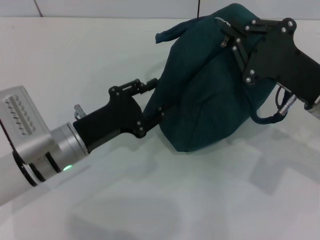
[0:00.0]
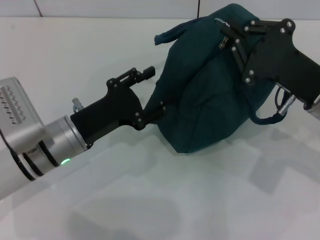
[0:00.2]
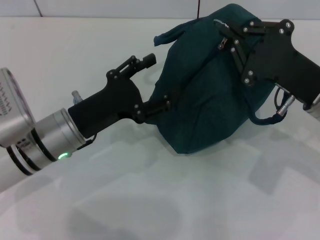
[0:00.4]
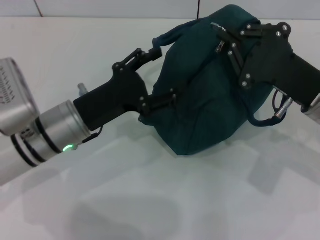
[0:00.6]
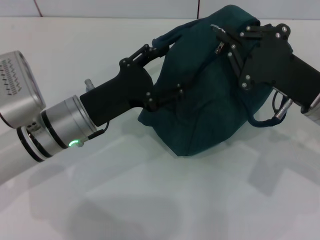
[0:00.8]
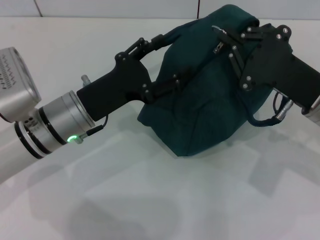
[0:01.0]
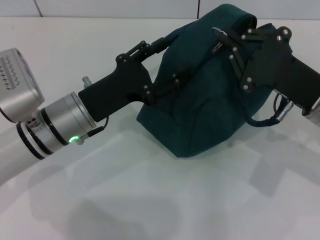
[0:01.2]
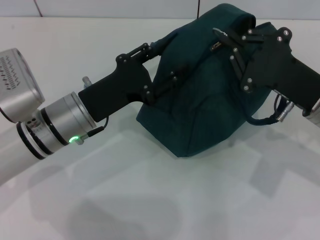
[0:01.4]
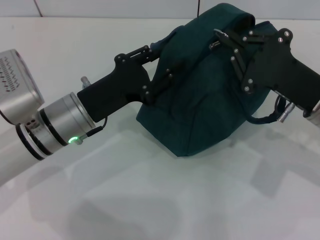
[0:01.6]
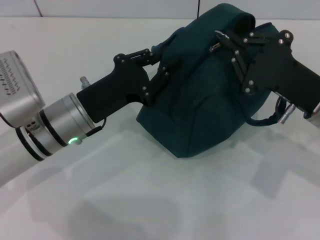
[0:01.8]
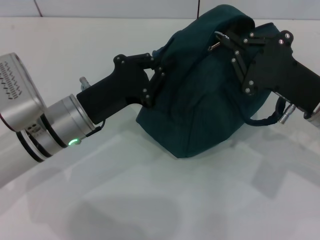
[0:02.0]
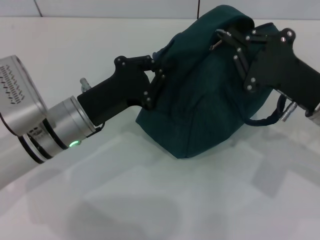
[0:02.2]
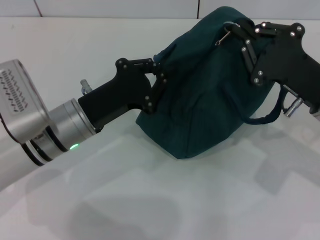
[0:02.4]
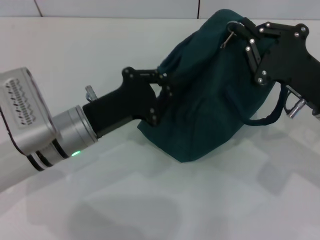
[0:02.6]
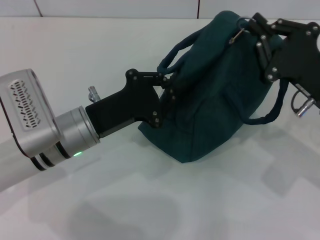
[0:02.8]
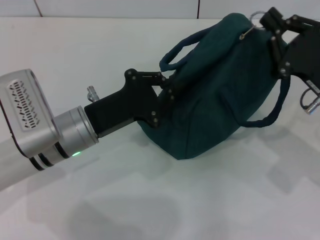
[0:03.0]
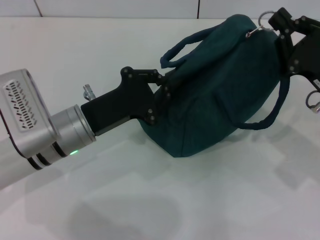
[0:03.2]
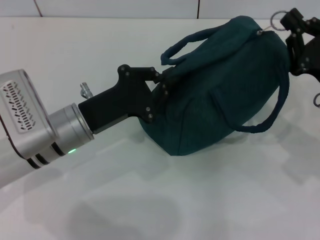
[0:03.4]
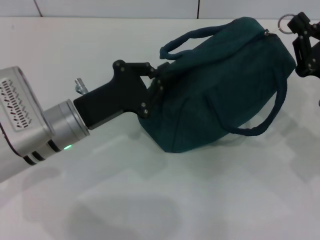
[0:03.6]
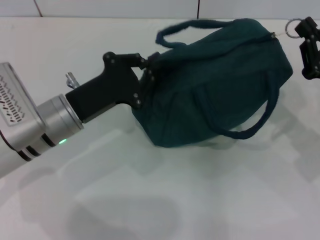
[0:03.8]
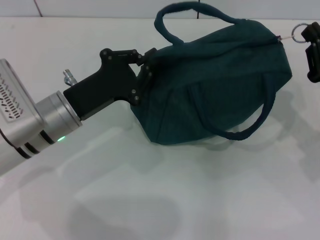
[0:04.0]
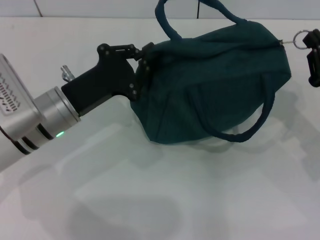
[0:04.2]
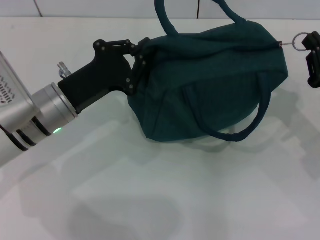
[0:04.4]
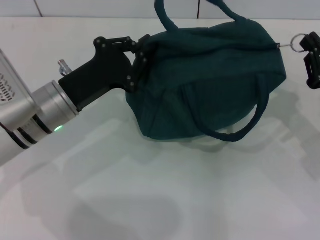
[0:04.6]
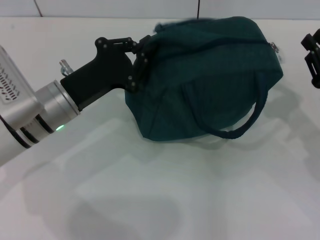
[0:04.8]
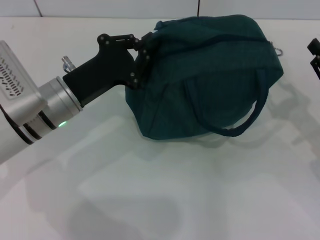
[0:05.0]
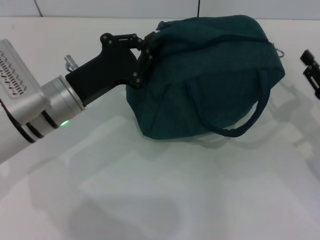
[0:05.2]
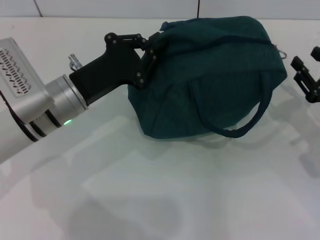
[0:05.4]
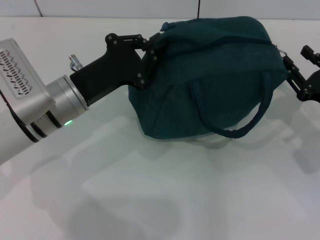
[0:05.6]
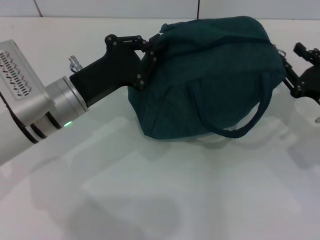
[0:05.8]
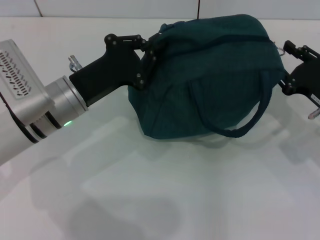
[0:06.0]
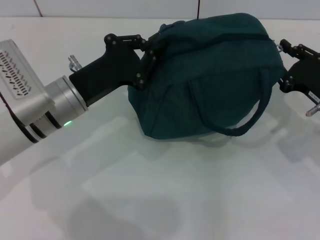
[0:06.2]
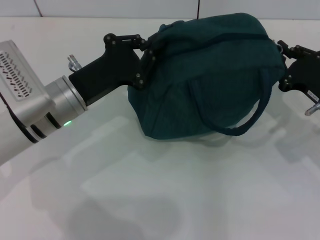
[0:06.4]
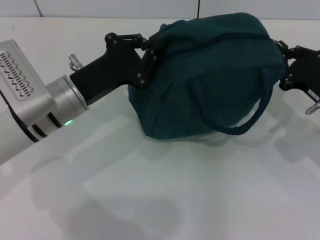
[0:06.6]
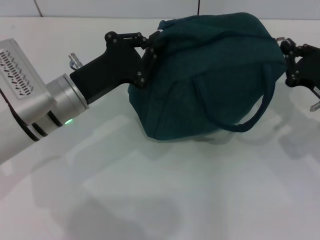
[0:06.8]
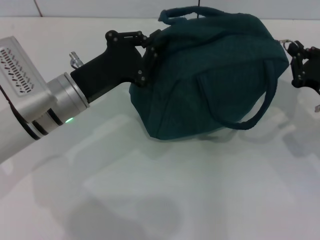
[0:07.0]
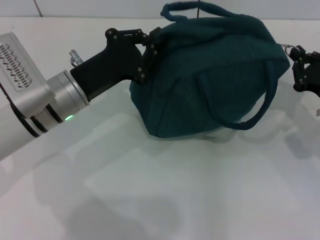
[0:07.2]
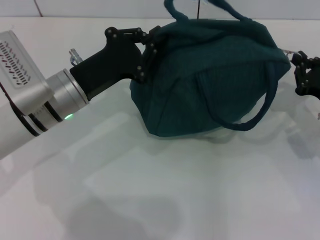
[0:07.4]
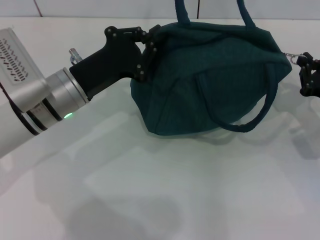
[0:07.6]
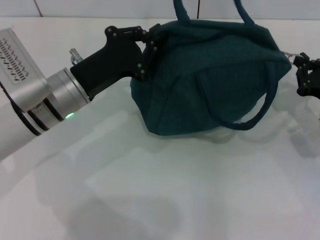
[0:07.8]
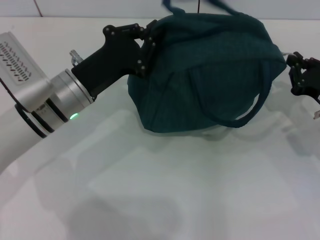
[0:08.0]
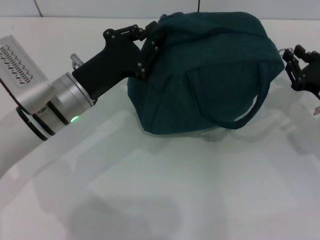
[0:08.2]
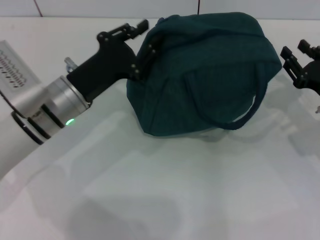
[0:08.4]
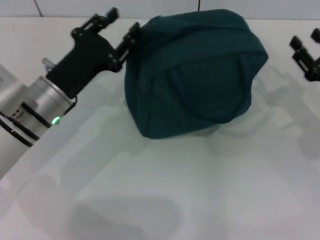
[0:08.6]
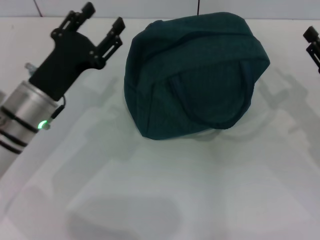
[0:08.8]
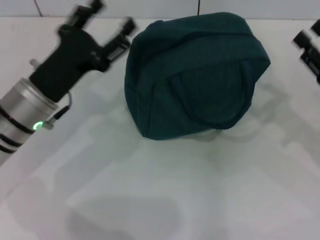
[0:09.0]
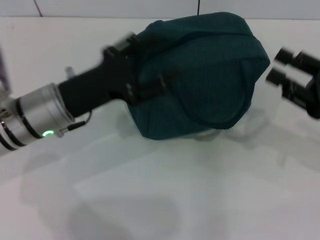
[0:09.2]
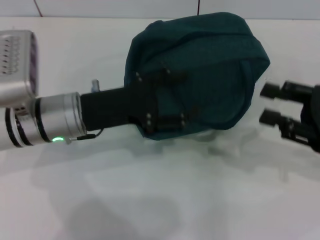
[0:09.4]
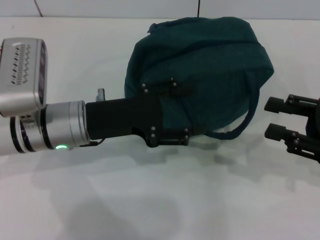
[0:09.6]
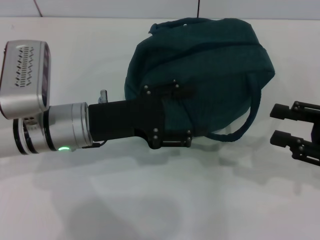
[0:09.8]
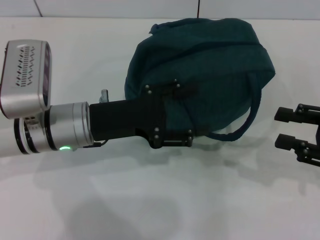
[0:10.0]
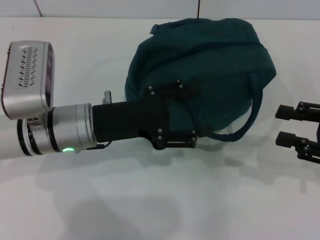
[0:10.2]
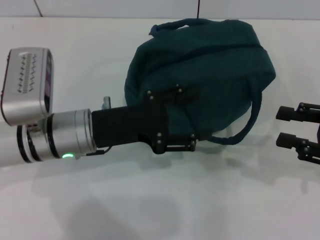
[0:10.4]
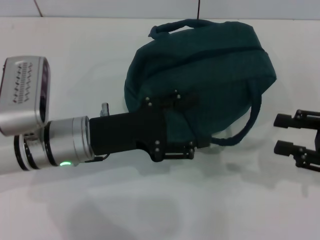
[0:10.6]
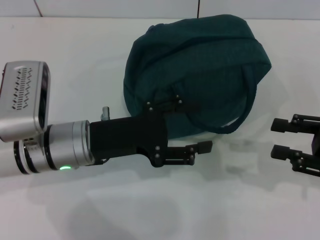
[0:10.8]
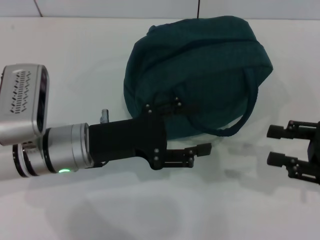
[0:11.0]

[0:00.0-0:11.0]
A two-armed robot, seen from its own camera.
Step, 0:00.0 to 0:08.0: Zip up the lunch bag with your right hand.
Step, 0:08.4 to 0:08.6: Hold the lunch bag with your left hand.
0:00.0 to 0:01.6: The grippers move only a little.
0:01.6 to 0:03.2: The left gripper closes its fingers.
0:03.2 to 0:04.8: The right gripper moves some 5 cm.
0:04.8 to 0:06.2: The right gripper opens its fingers.
0:06.2 to 0:07.8: The right gripper closes up.
0:07.8 to 0:09.4: The left gripper opens, while the right gripper goes some 5 cm upward, and opens.

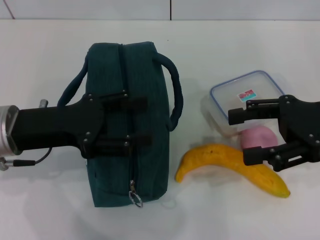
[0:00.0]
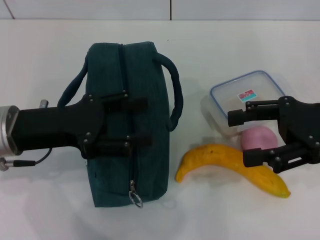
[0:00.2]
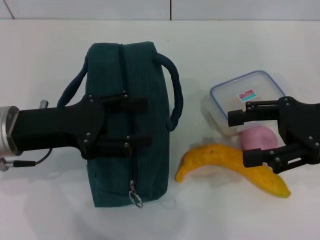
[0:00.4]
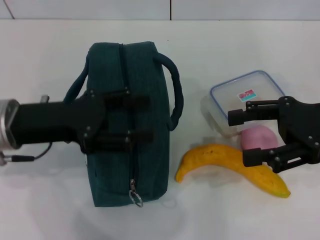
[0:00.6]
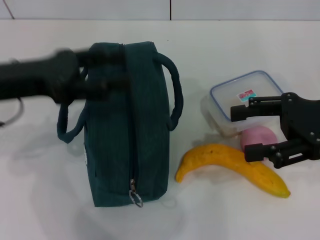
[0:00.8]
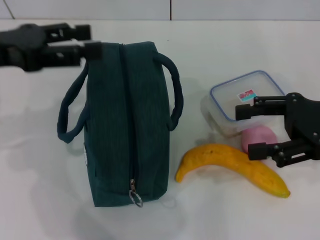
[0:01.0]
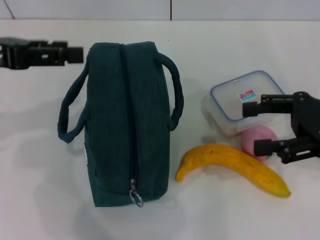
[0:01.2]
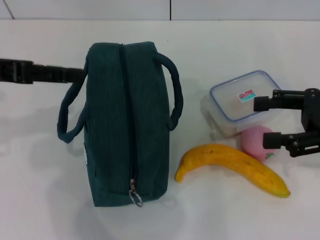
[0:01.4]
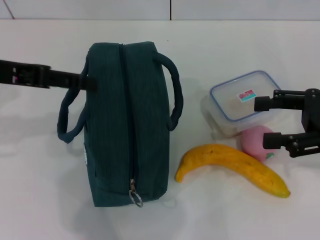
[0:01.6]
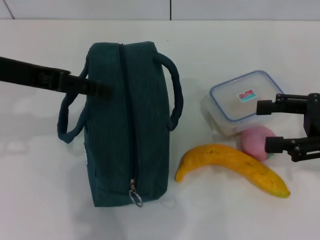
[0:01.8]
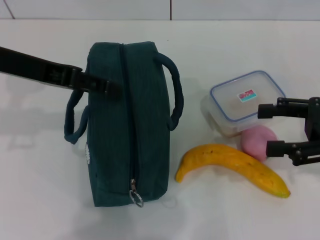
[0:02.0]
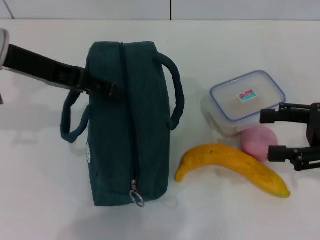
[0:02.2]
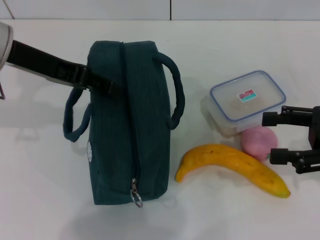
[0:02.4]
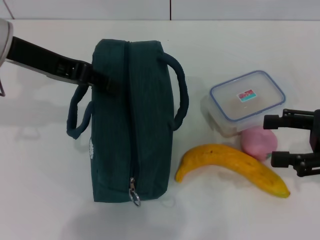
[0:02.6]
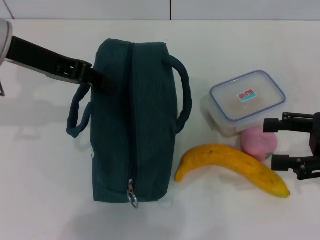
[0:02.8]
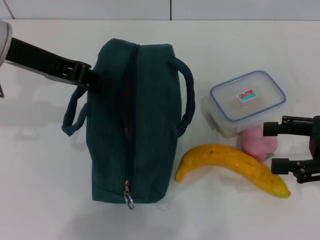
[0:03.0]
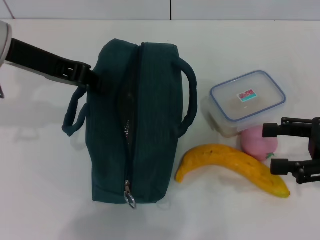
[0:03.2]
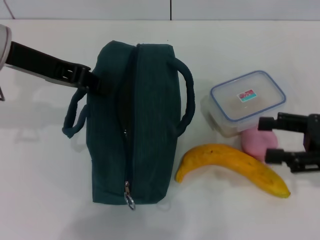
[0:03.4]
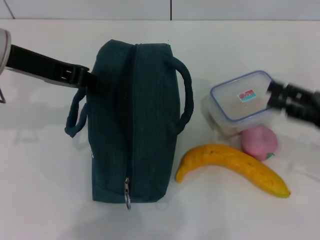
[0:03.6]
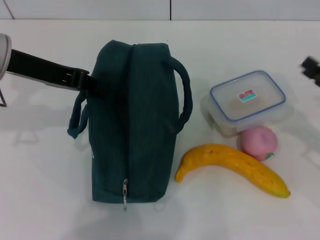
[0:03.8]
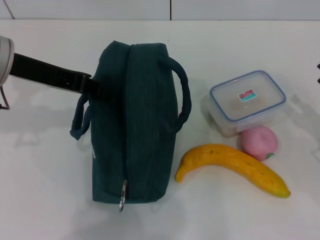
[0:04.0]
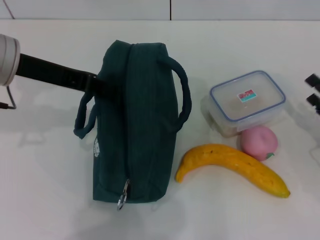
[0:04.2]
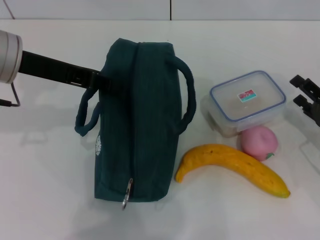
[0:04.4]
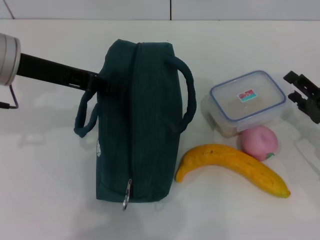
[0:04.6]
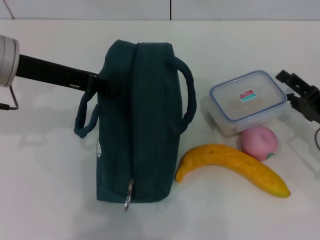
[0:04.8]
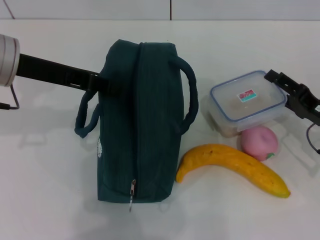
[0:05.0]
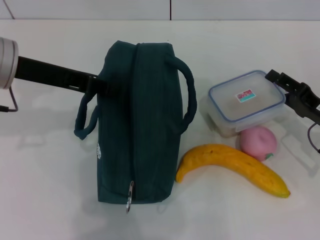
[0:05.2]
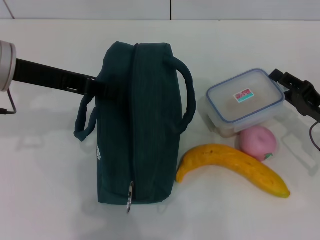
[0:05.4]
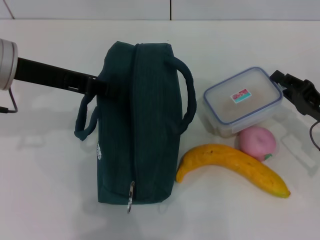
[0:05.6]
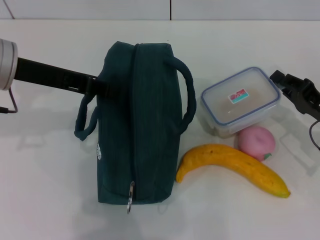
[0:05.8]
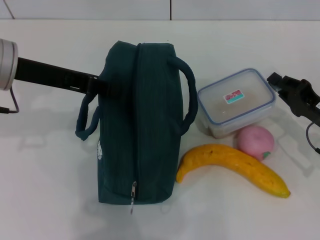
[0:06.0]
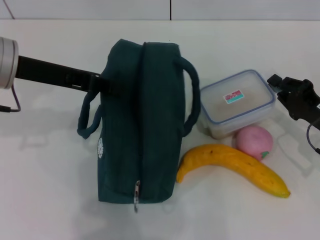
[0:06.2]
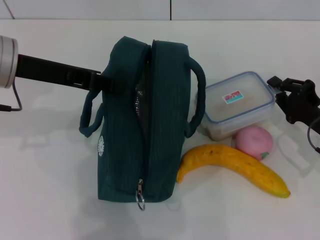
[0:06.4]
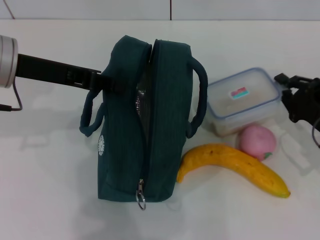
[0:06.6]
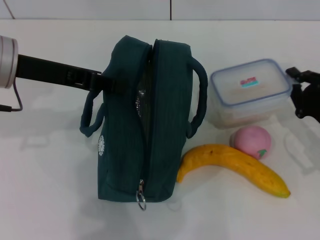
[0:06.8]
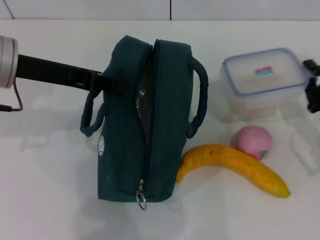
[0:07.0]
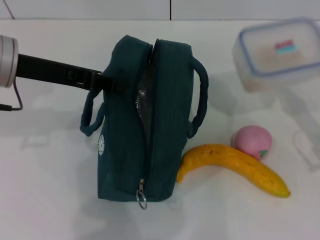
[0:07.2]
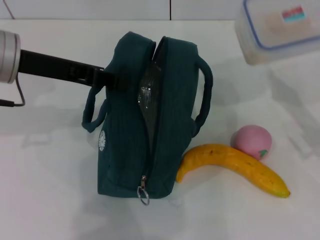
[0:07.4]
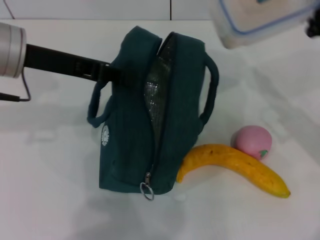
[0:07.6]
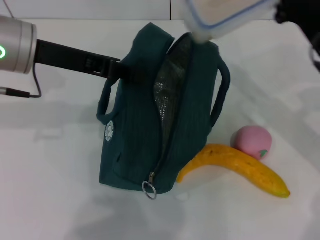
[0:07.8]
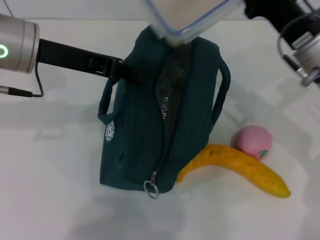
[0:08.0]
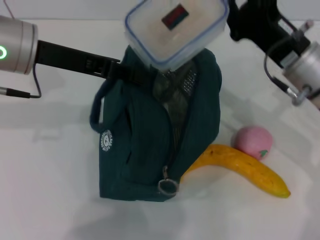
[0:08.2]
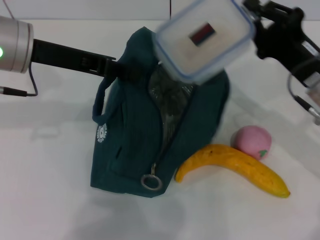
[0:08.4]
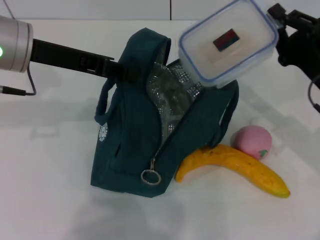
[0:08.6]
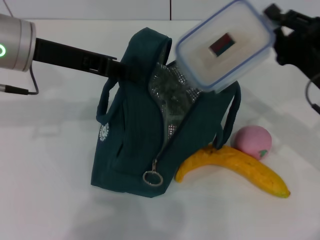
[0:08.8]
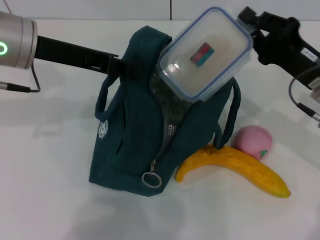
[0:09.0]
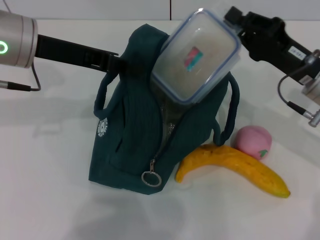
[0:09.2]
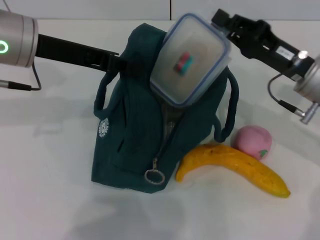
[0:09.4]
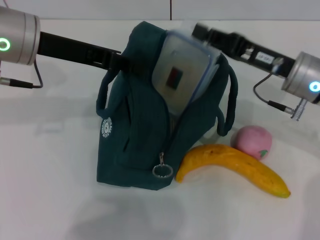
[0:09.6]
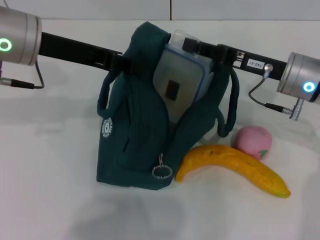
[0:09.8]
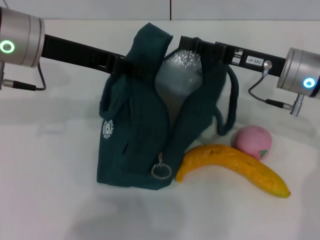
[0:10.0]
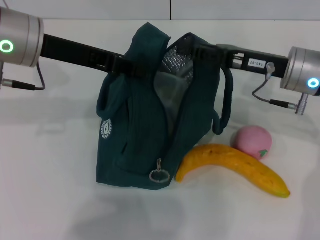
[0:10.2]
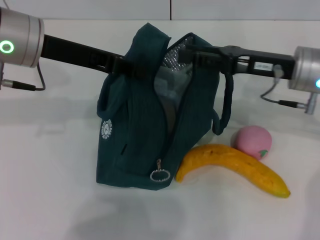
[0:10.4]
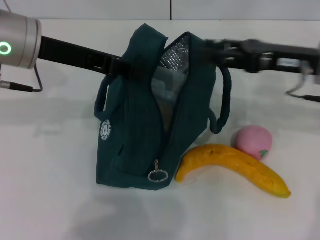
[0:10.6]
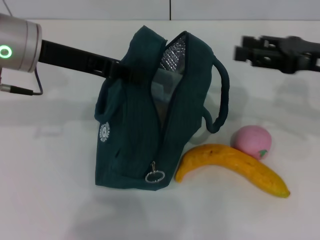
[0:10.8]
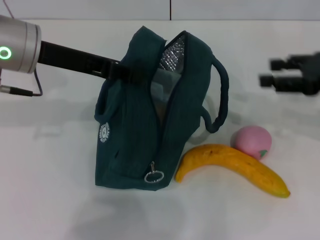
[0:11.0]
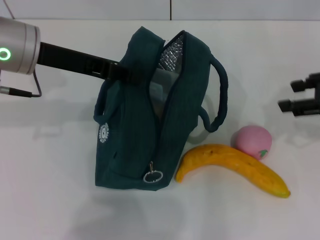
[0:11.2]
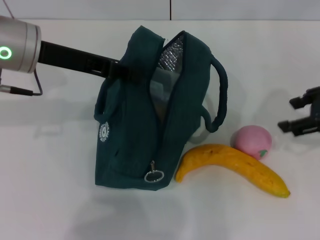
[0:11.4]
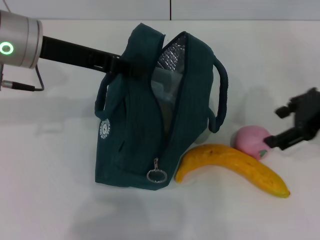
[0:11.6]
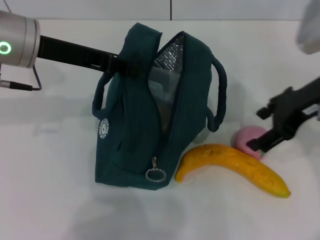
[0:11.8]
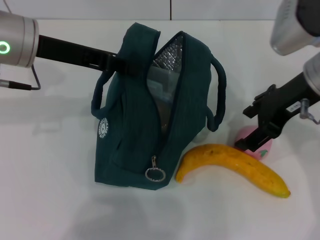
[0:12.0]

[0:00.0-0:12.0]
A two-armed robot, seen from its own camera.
Step, 0:00.0 to 0:02.6: Hold the lunch bag with your left hand.
Step, 0:02.8 to 0:06.0: Pick up the lunch box with your right hand.
Step, 0:06.2 to 0:10.0: Place the lunch box into the lunch bag with your right hand.
0:00.0 to 0:01.6: The left gripper shifts approximately 10 cm upward.
0:01.6 to 0:03.0: The left gripper changes place by about 5 cm, and closes its fingers.
0:03.0 to 0:04.4: The right gripper heads downward, covering roughly 10 cm.
0:04.4 to 0:06.0: The right gripper closes.
0:06.0 to 0:07.6: The right gripper goes about 10 cm upward.
0:09.0 to 0:10.4: The right gripper shifts by roughly 5 cm.
0:10.4 to 0:12.0: The right gripper travels upward by about 5 cm, moves some 10 cm to the right and comes back, and opens its fingers.
